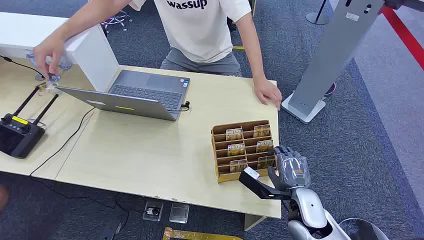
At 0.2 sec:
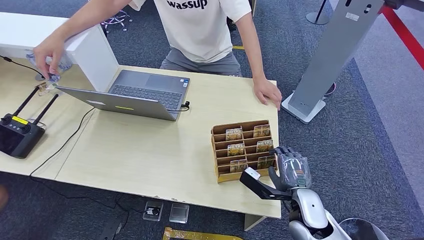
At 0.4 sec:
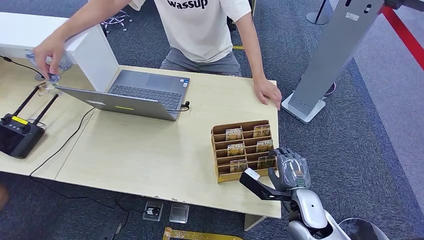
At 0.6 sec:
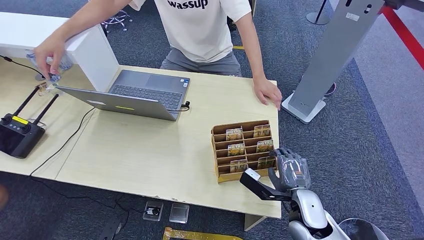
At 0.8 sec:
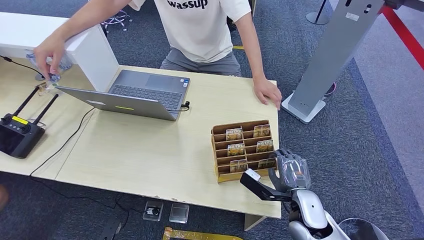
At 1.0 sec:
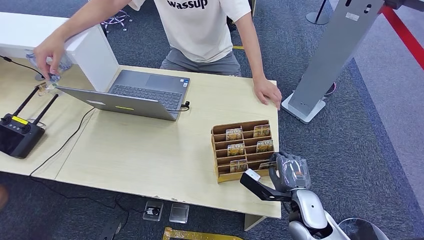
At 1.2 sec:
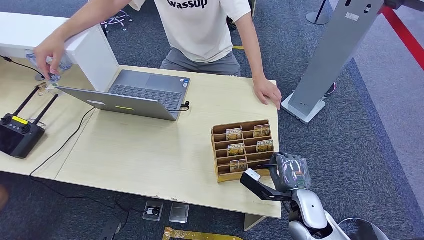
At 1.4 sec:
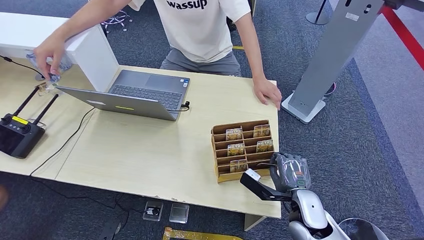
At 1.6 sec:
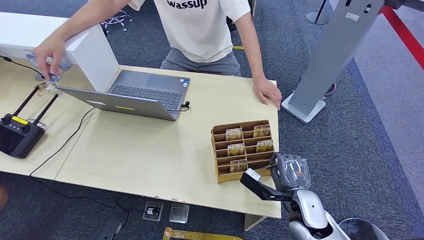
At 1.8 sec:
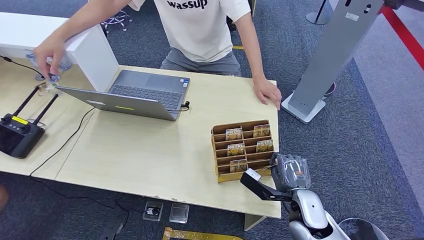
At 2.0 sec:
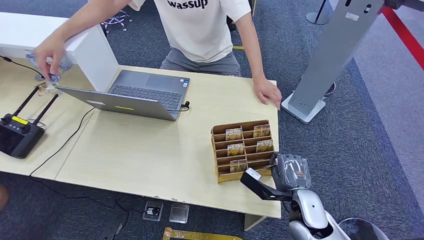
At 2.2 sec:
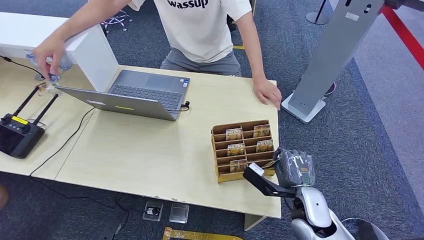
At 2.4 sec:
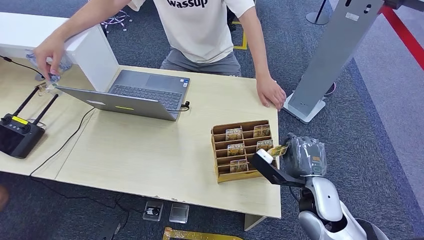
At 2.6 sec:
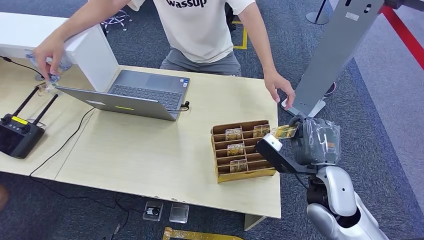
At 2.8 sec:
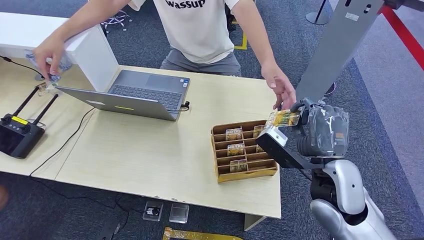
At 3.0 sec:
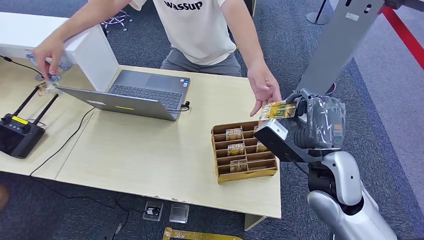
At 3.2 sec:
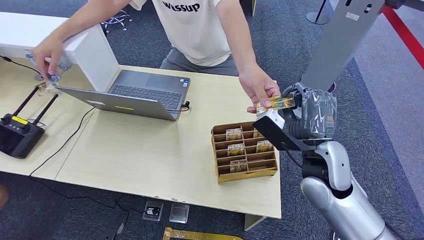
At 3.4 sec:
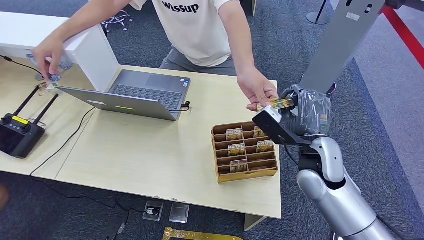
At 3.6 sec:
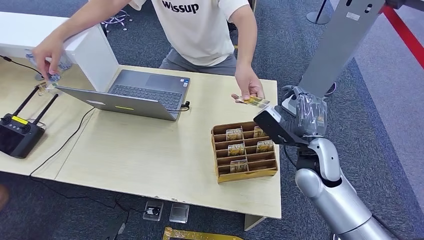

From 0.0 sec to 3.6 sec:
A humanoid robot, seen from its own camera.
Step, from 0.0 sec to 2.2 sec: Pick up the room card from the card holder.
Step, from 2.8 sec to 3.6 sec: Hand the room card to the target.
From 1.8 sec to 3.6 sec: The right hand shifts roughly 15 cm upward and forward.
